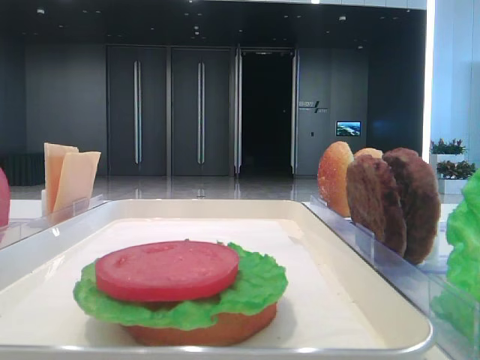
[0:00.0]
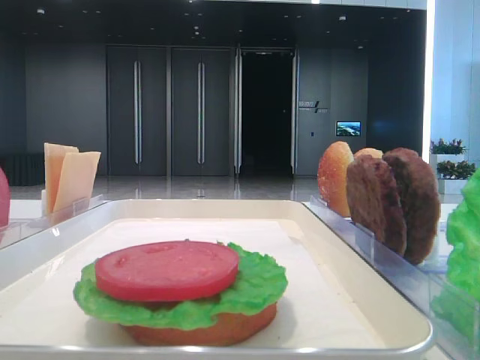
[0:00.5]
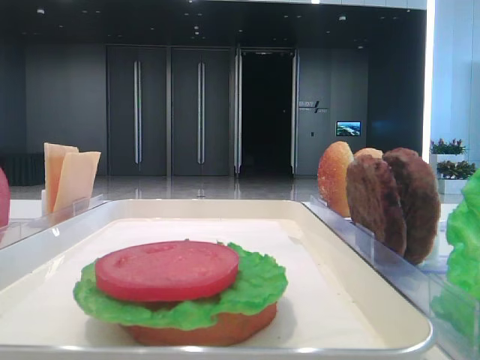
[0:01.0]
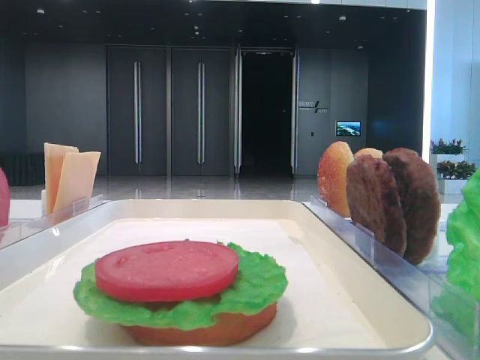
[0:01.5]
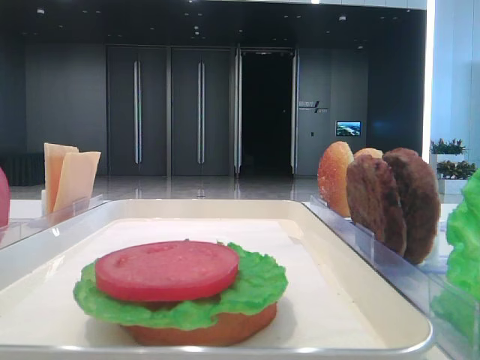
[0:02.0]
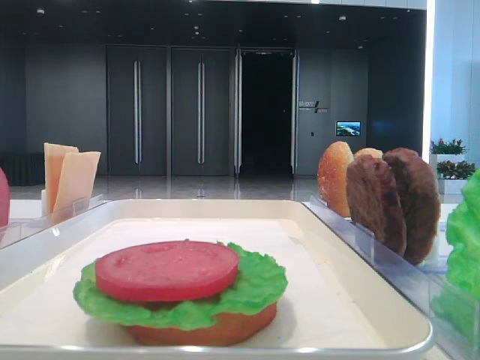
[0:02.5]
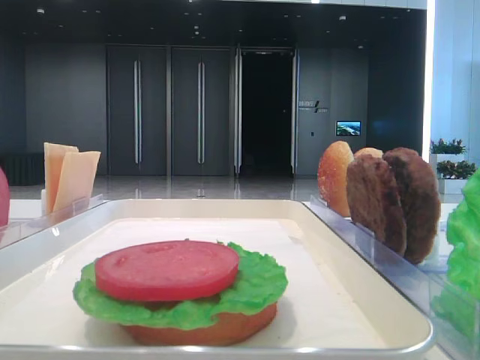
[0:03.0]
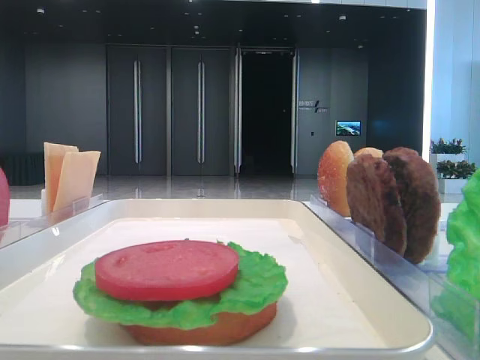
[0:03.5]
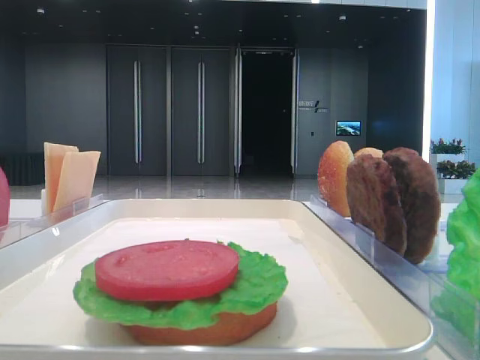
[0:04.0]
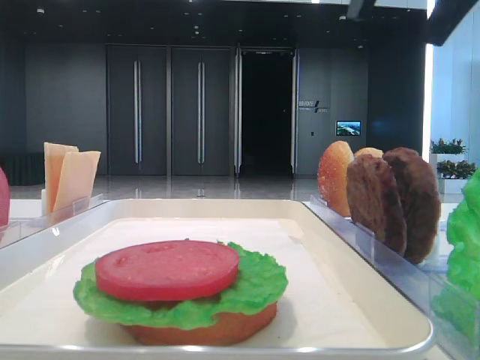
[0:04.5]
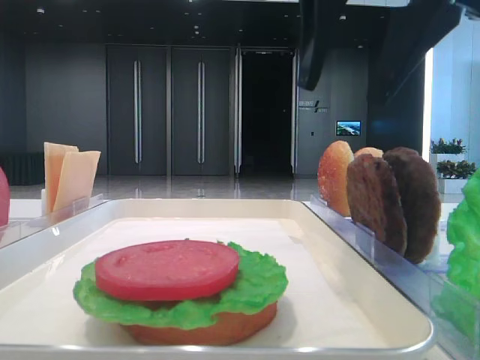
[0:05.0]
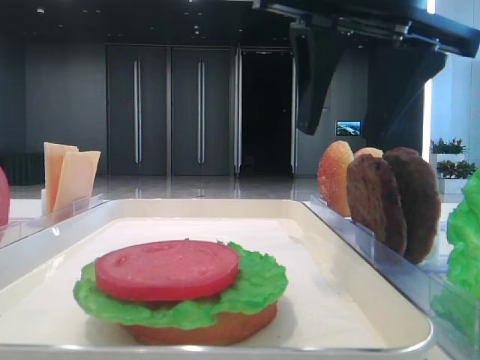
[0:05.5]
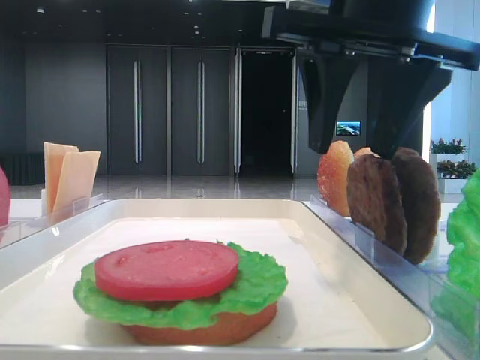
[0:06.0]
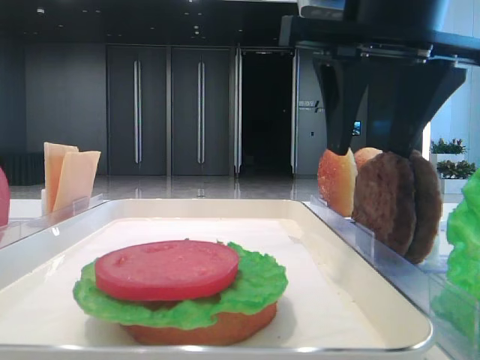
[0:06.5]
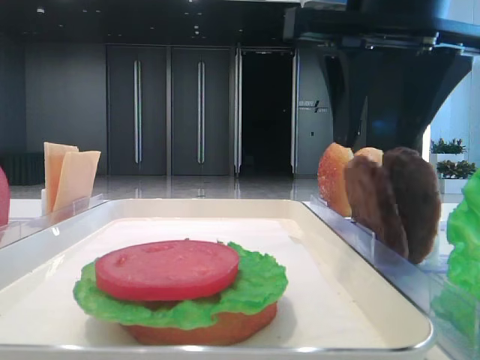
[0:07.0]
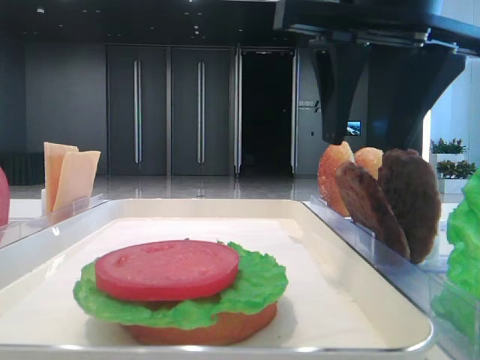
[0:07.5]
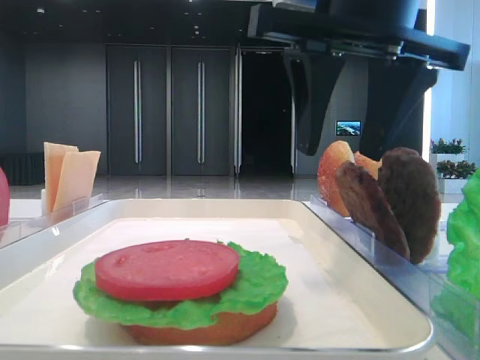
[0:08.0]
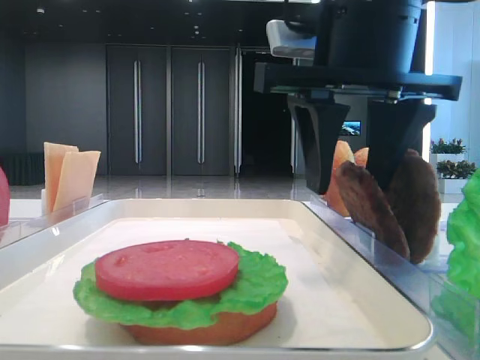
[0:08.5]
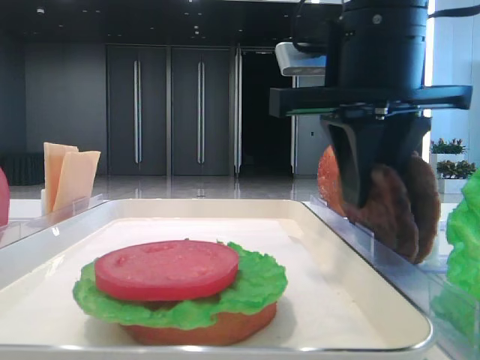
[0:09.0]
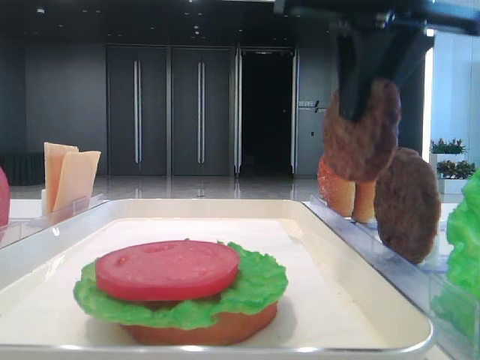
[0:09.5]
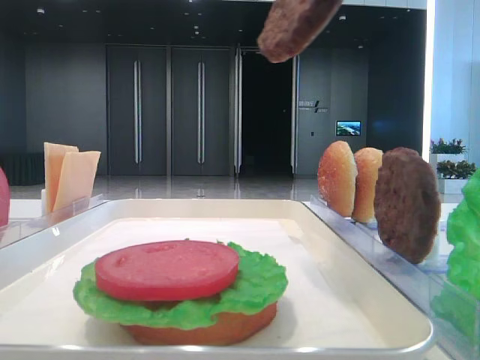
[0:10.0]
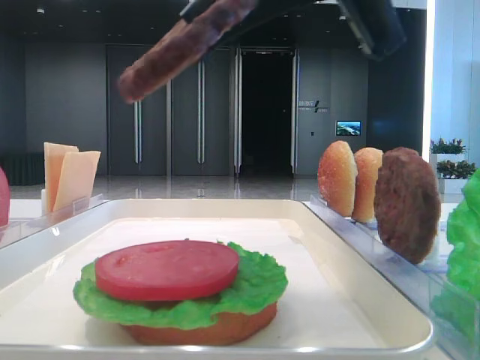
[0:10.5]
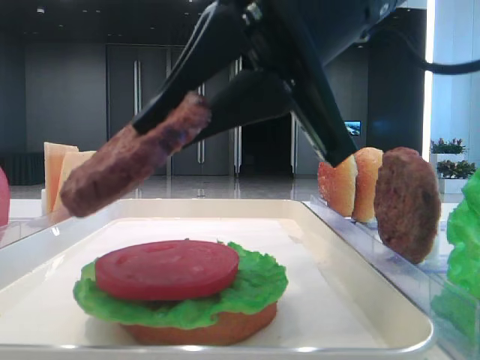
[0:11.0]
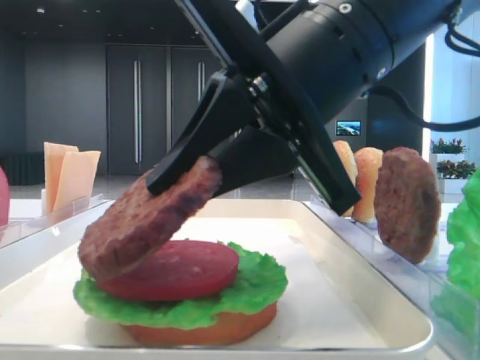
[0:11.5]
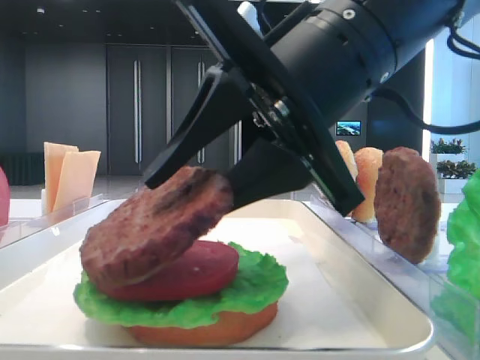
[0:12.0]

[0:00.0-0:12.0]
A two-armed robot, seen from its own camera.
Step, 0:00.0 to 0:09.0: Grab the patty with the right hand.
0:04.0 to 0:06.0: The right gripper heads to the left, downward and forward, covering approximately 15 cm.
0:06.0 to 0:08.0: There are only small adjustments of the grippers.
0:08.0 to 0:10.0: The right gripper is displaced upward and backward by some 10 cm, and closes.
0:10.0 to 0:12.0: The right gripper moves downward, roughly 15 cm, and opens.

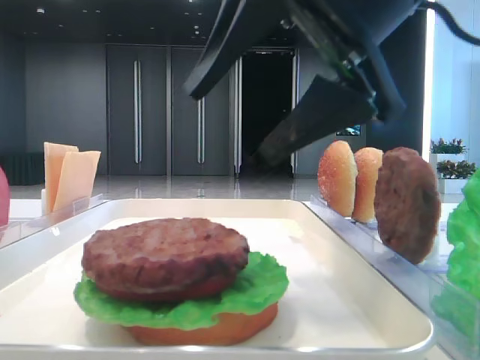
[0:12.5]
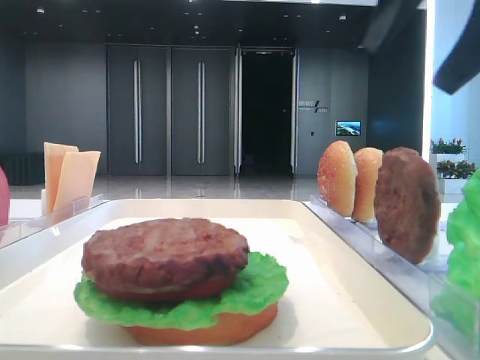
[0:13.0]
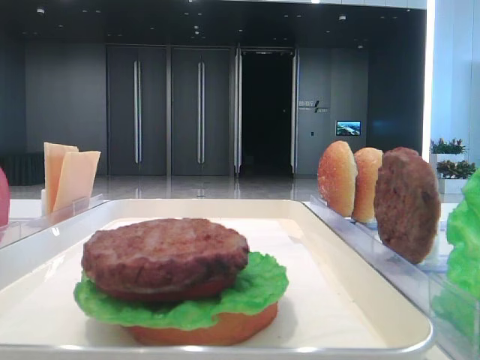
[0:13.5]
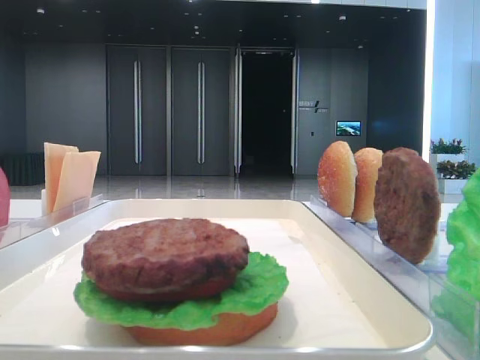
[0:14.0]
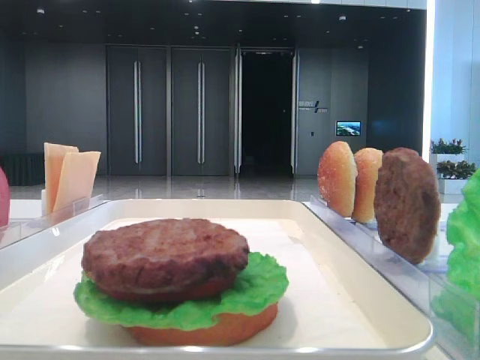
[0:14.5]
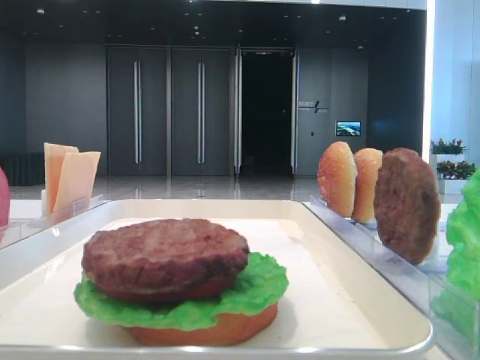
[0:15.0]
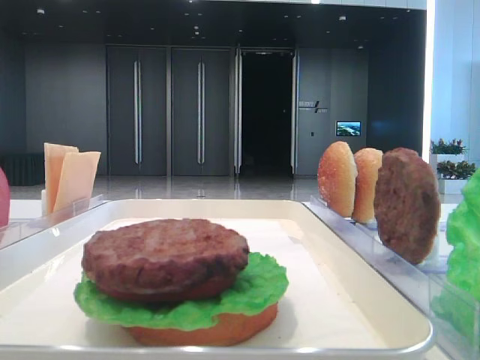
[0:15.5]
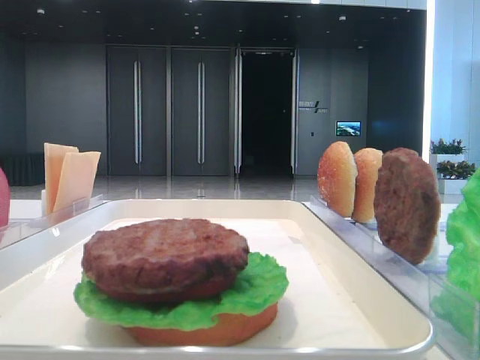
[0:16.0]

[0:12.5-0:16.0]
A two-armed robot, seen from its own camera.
0:12.5 to 0:14.5: The right gripper is displaced to the right and backward by about 25 cm.

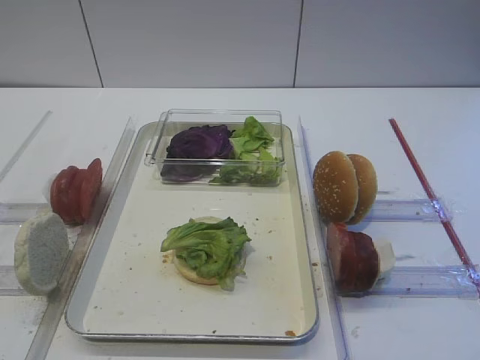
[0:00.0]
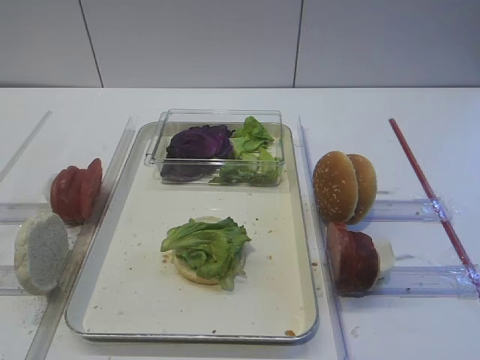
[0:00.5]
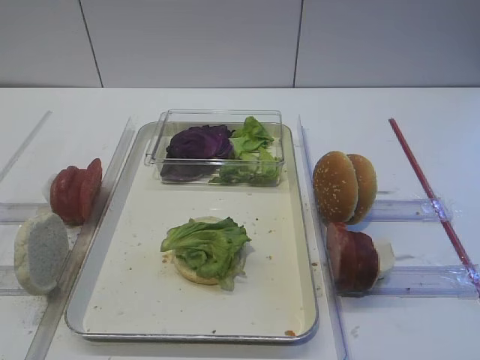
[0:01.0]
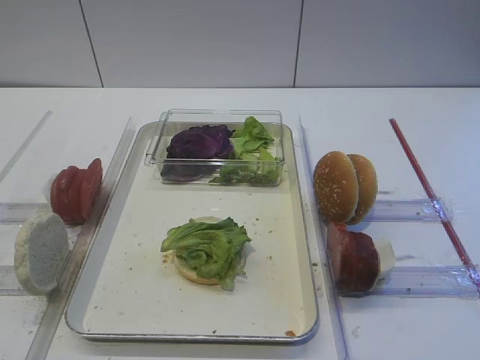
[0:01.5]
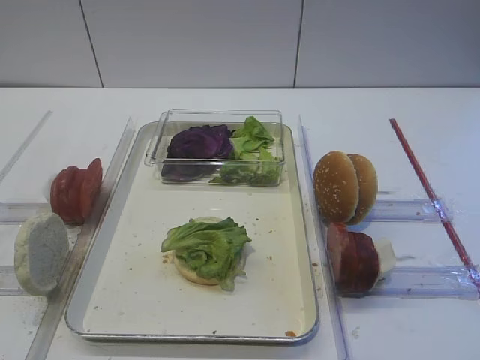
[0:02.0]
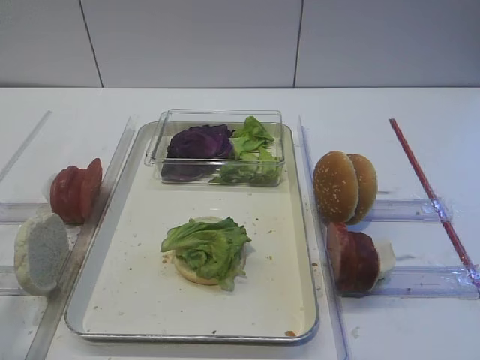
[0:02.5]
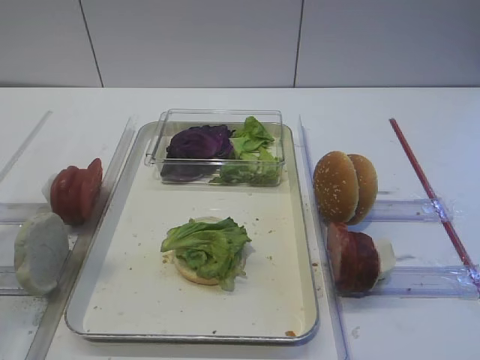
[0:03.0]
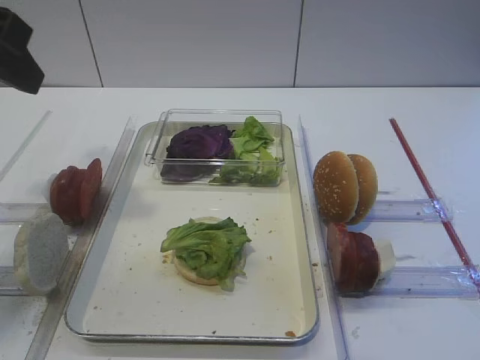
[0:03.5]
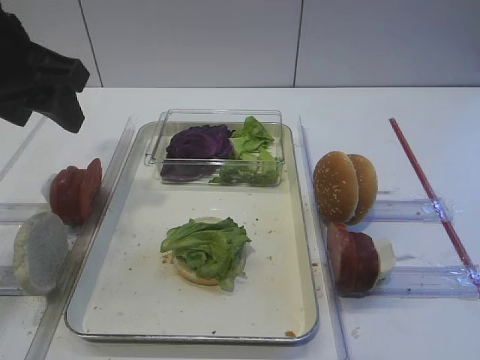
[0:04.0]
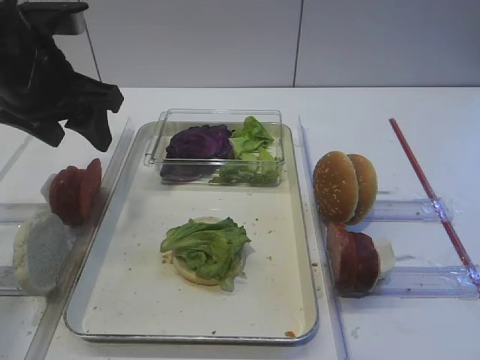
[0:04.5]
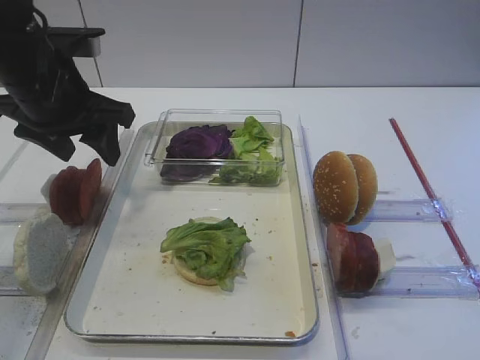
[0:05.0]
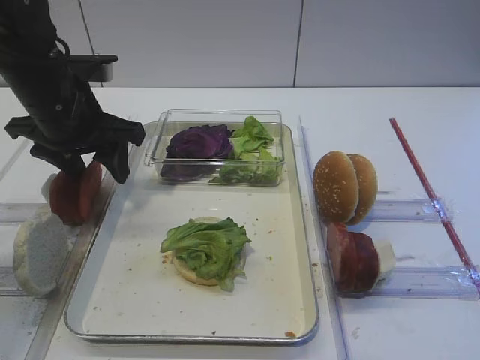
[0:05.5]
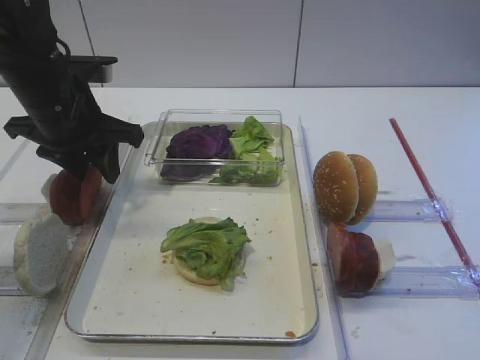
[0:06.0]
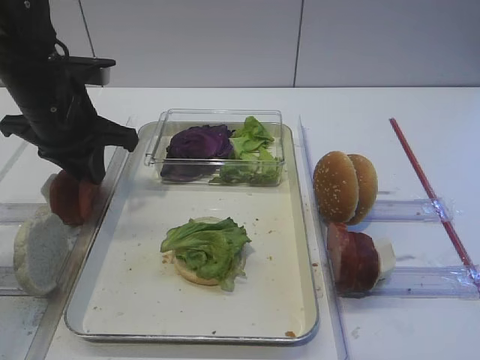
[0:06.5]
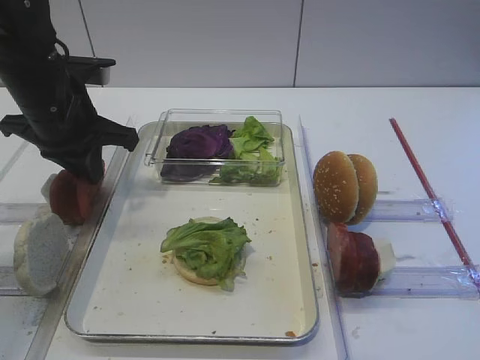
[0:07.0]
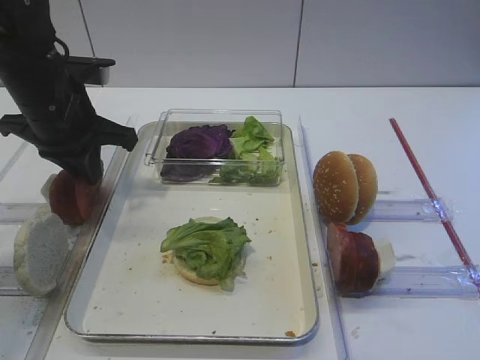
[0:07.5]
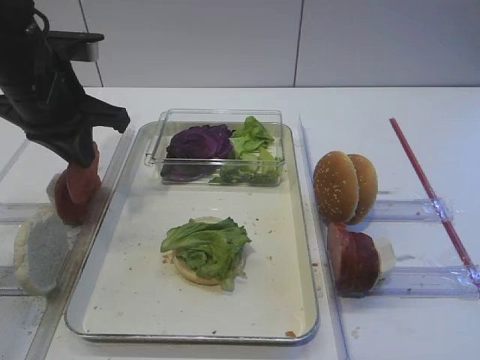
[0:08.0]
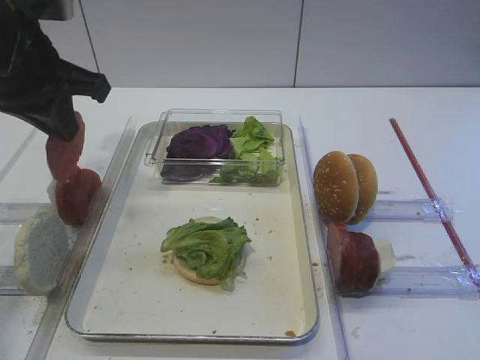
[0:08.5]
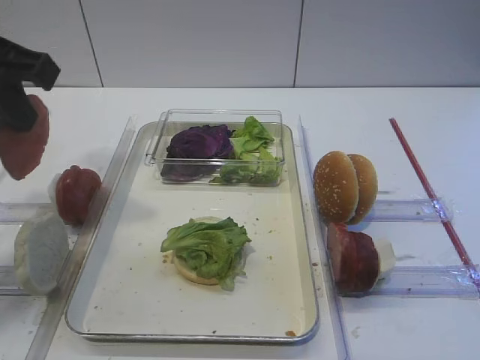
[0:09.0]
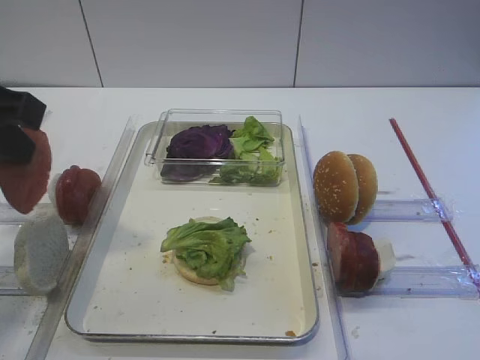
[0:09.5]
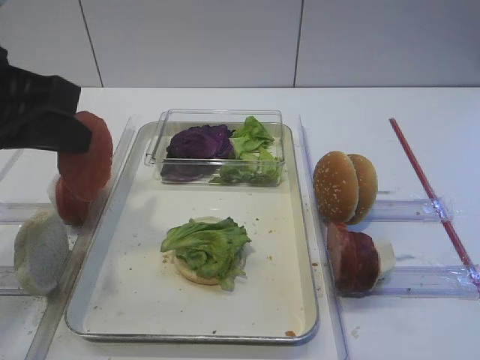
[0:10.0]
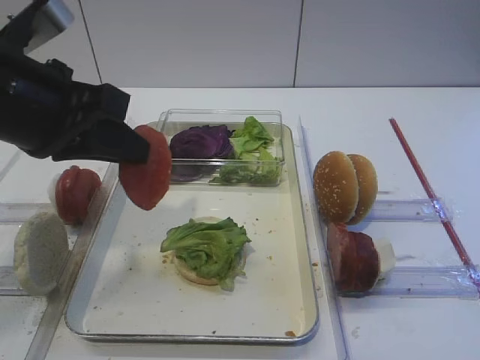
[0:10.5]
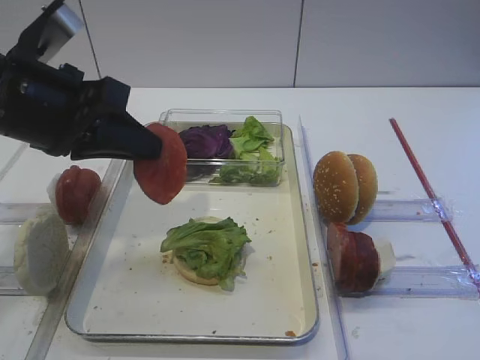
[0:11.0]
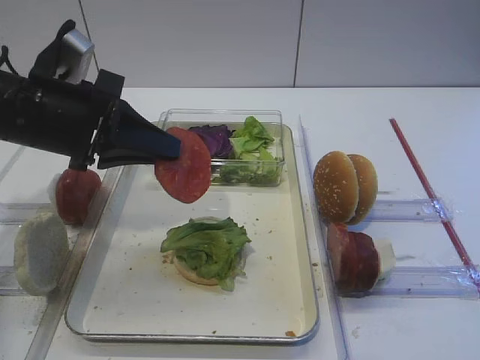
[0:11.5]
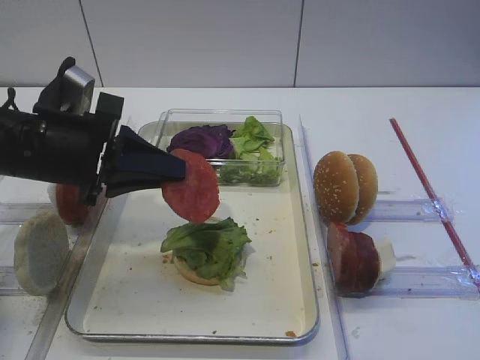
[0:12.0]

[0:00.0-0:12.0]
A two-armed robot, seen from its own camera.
Step, 0:00.0 to 0:08.0: Pick up the tomato slice with the left gripper.
0:02.0 to 0:04.0: The left gripper shifts approximately 30 cm forward.
0:04.0 to 0:06.0: The left gripper shifts about 10 cm downward and forward.
0:06.0 to 0:08.0: The left gripper closes up.
0:08.0 to 0:10.0: The left gripper heads backward and upward, covering approximately 15 cm.
0:10.0 to 0:12.0: The left gripper moves downward and forward, about 10 cm.
